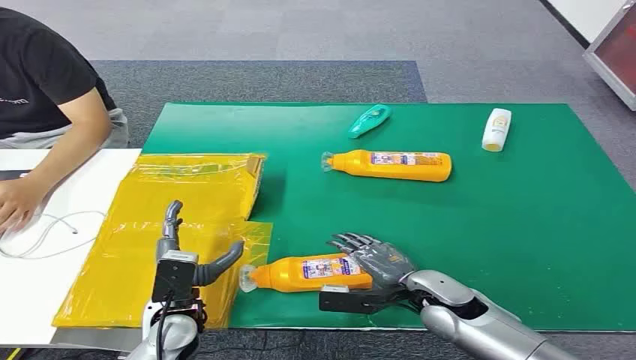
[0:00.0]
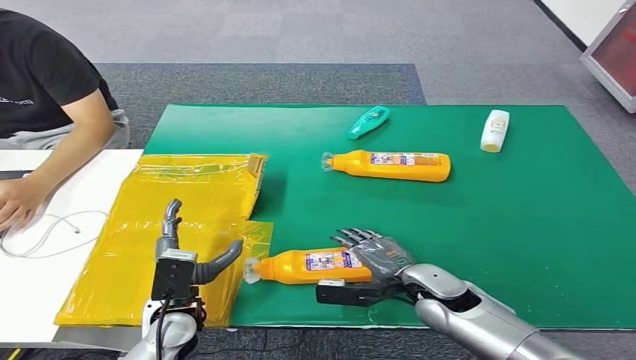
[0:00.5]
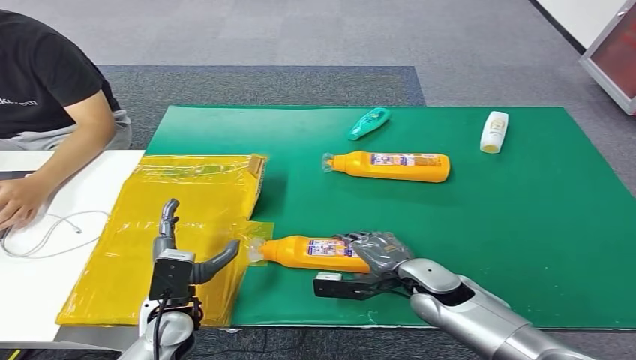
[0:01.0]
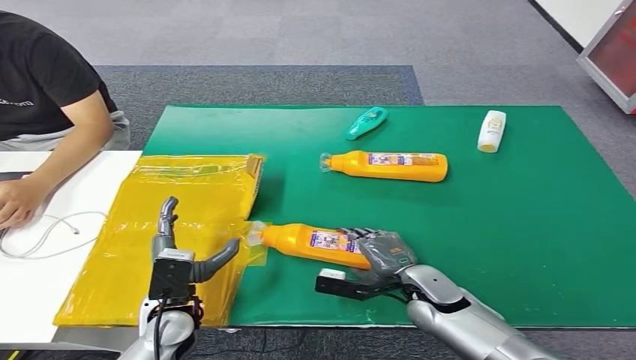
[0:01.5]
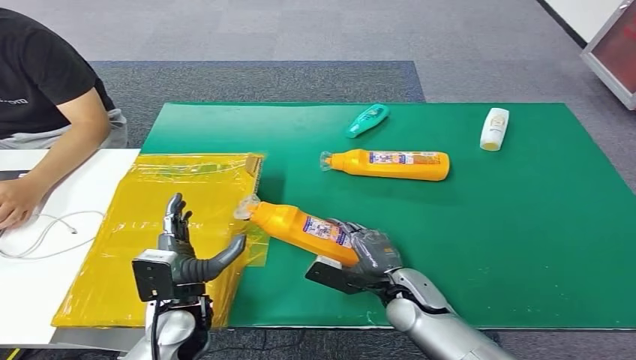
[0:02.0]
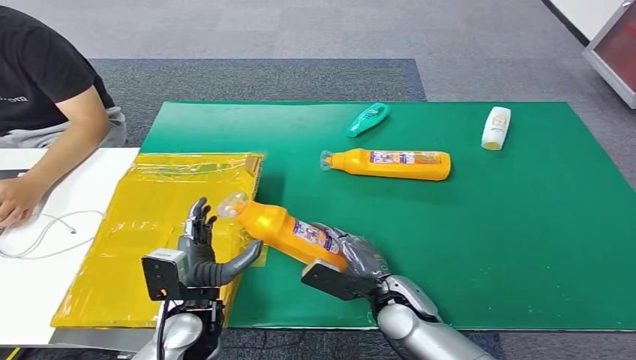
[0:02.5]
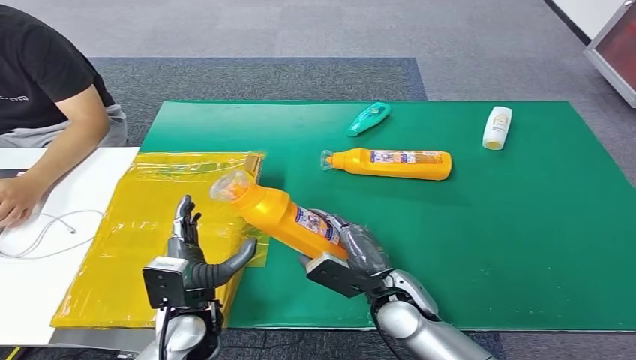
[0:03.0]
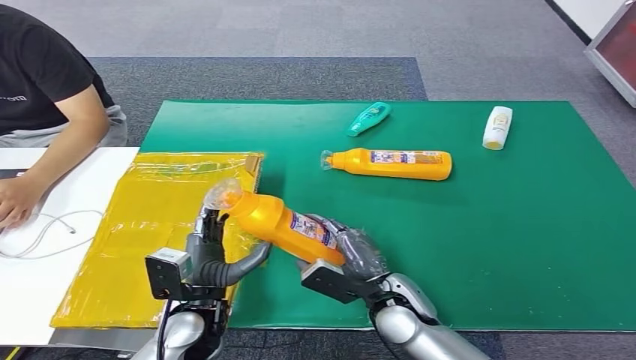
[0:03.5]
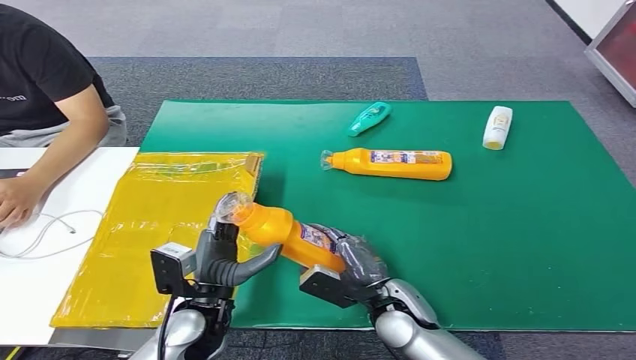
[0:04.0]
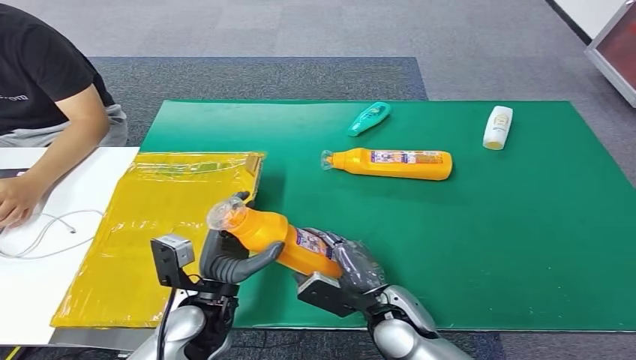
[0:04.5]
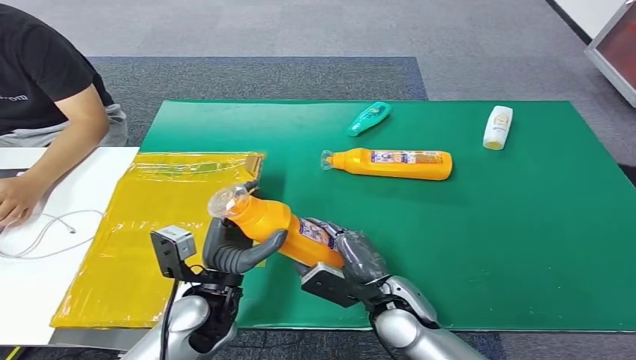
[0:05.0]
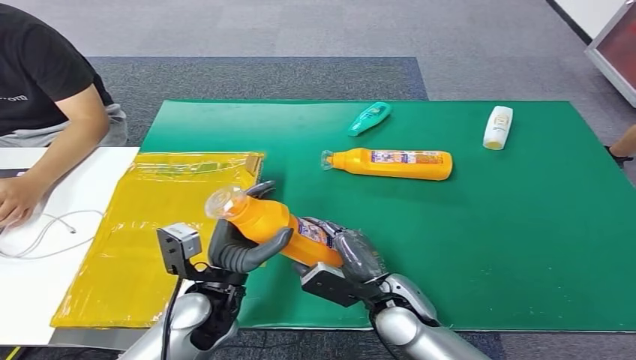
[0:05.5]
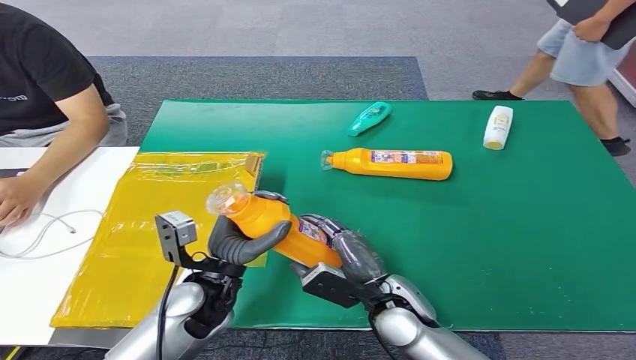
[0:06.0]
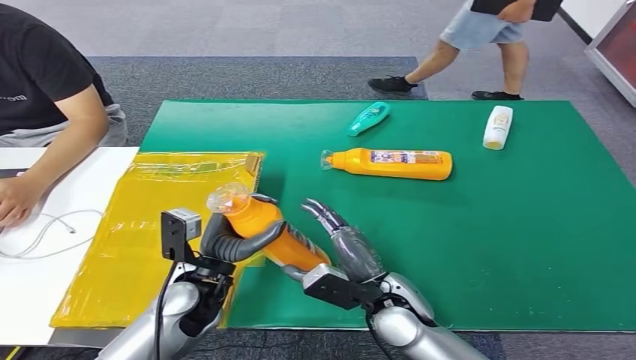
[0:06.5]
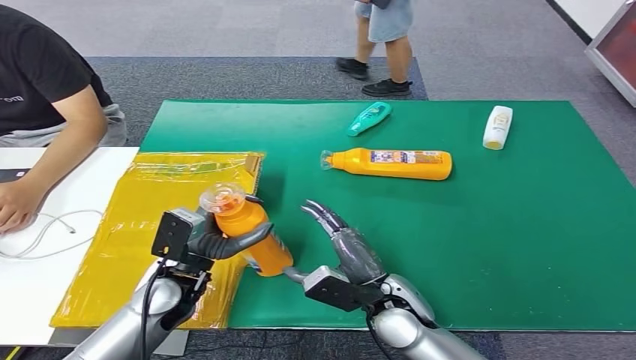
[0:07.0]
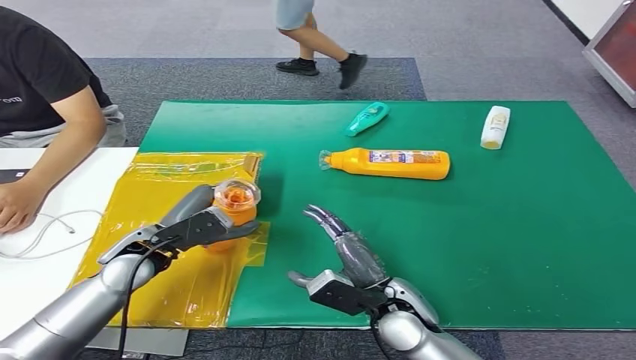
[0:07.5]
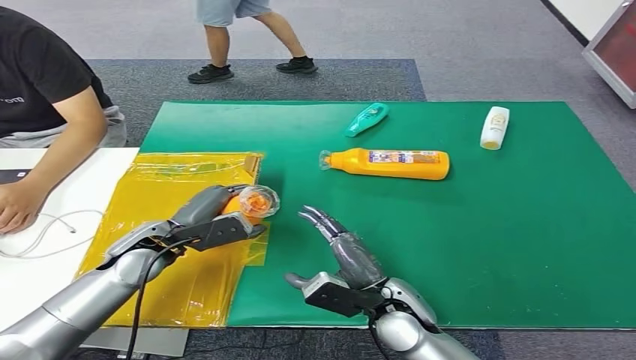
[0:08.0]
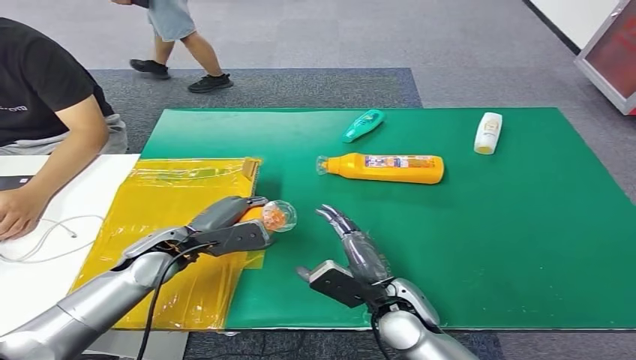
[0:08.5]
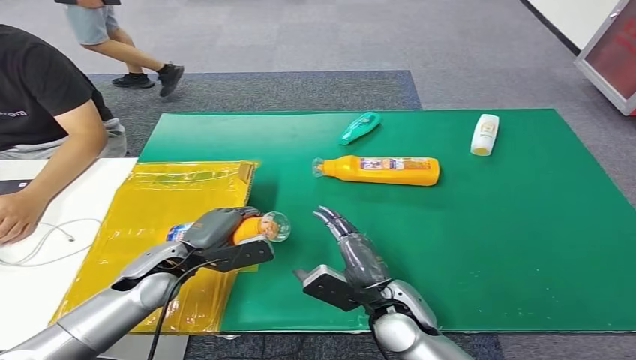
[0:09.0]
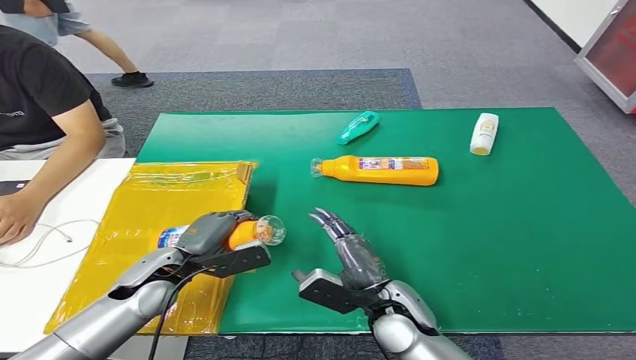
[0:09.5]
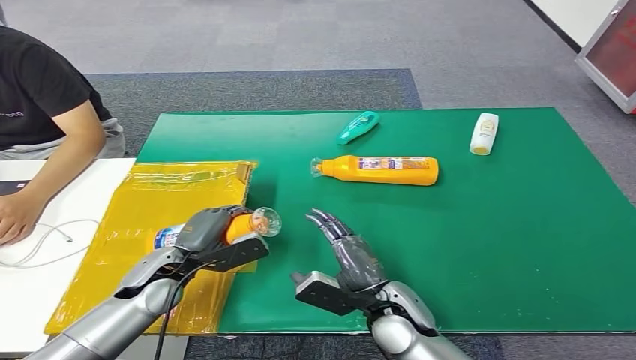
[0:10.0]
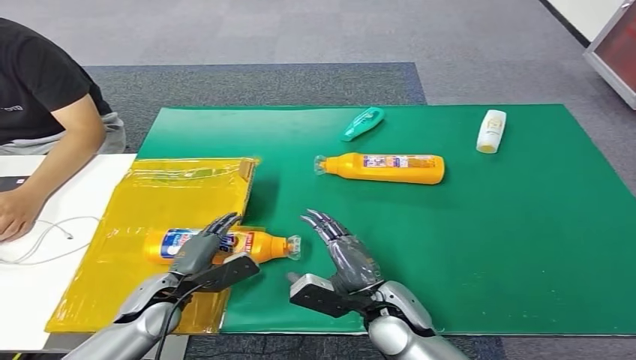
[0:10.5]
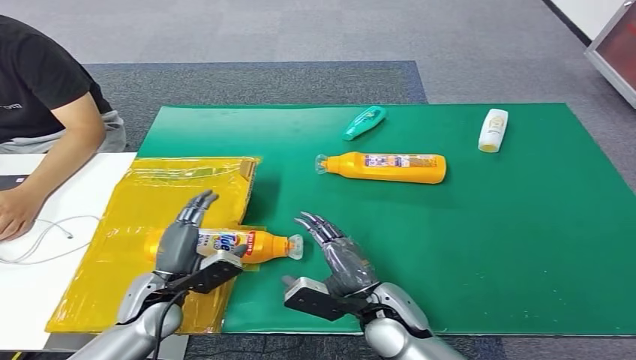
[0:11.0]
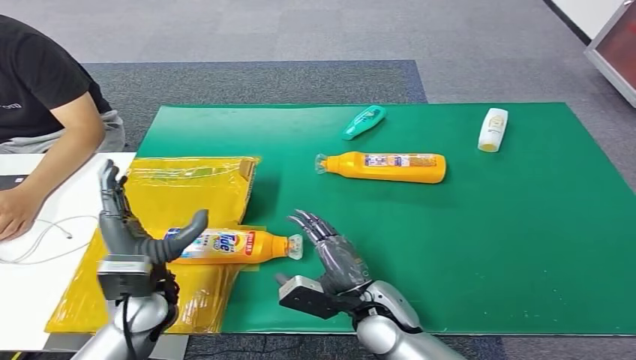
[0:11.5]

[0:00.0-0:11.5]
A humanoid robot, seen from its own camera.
Step, 0:00.0 to 0:03.0: Pick up the bottle from the table.
Step, 0:03.5 to 0:11.5: Turn the bottle to the front side.
0:04.0 to 0:06.0: The left hand moves roughly 5 cm.

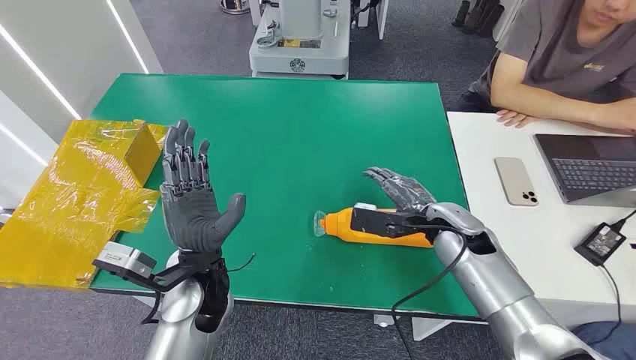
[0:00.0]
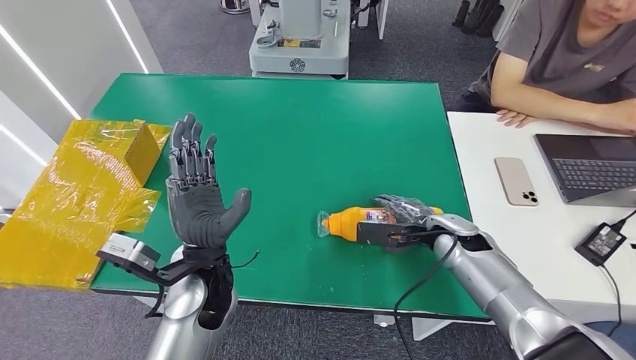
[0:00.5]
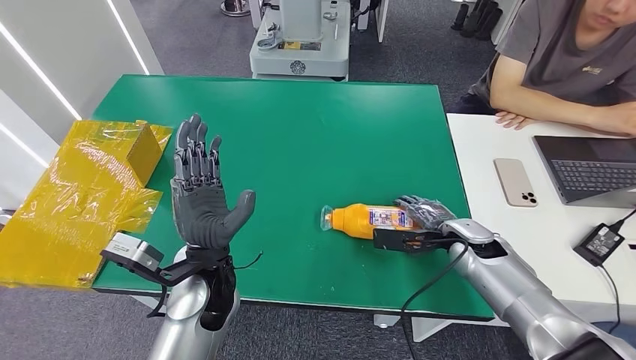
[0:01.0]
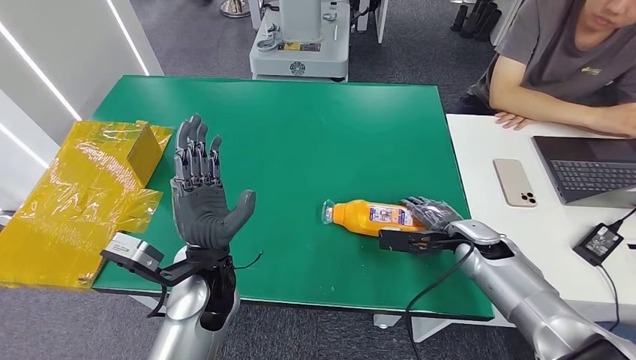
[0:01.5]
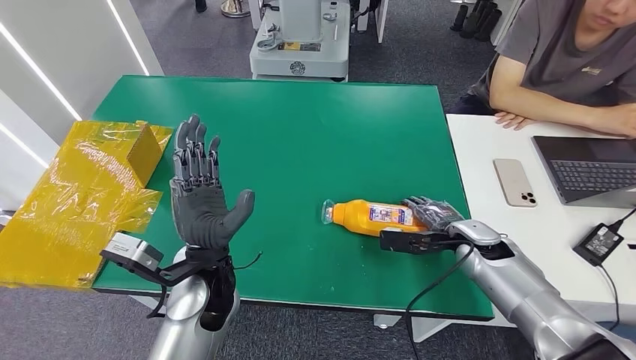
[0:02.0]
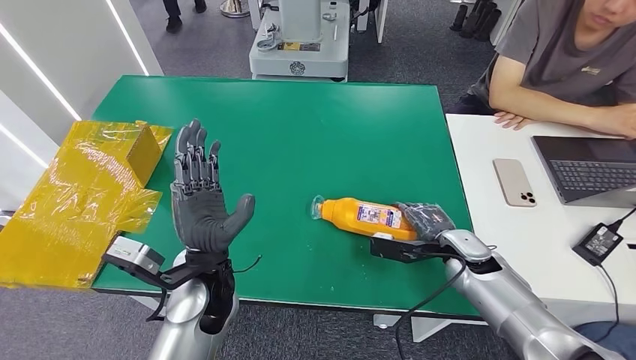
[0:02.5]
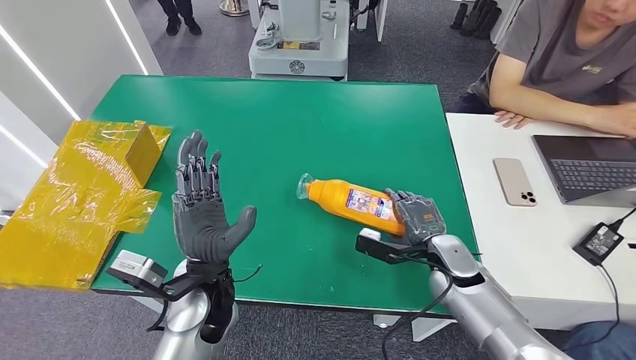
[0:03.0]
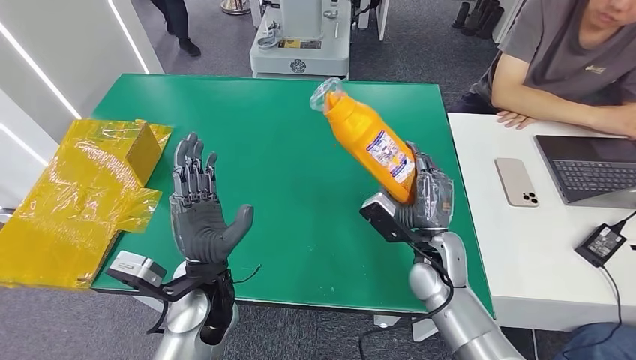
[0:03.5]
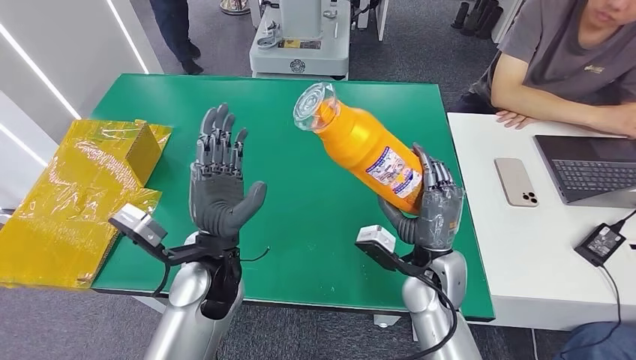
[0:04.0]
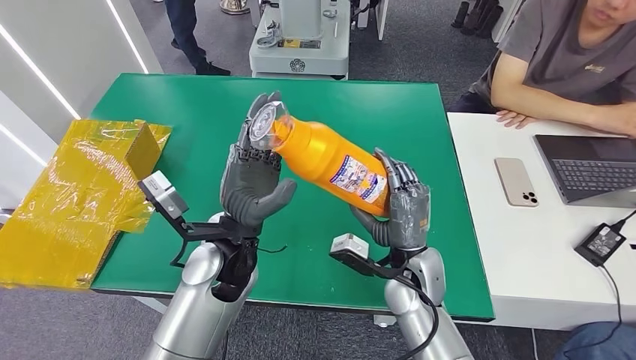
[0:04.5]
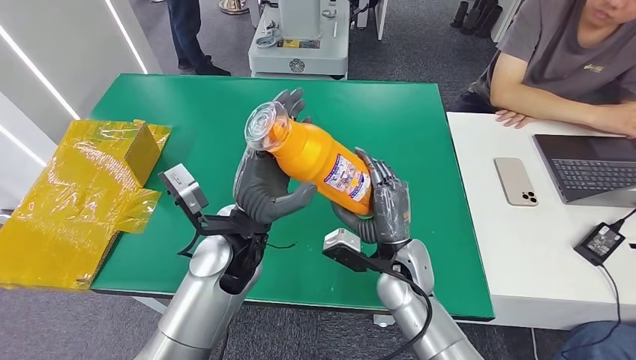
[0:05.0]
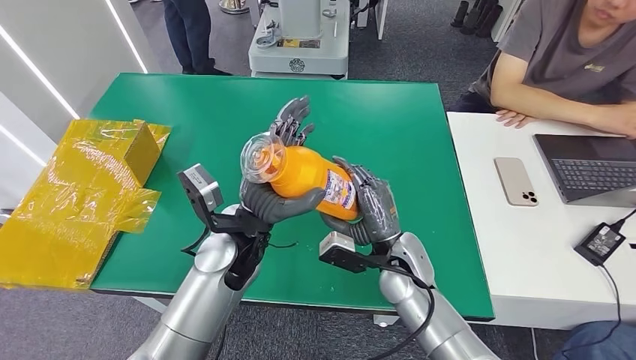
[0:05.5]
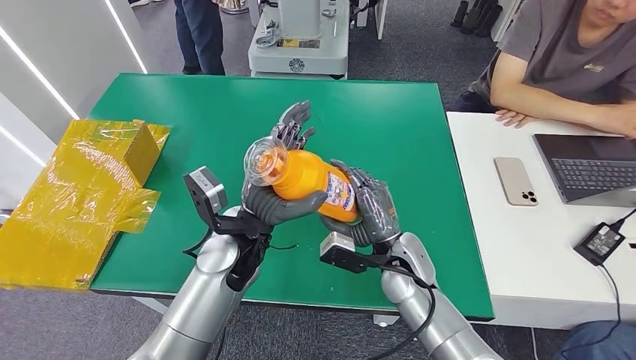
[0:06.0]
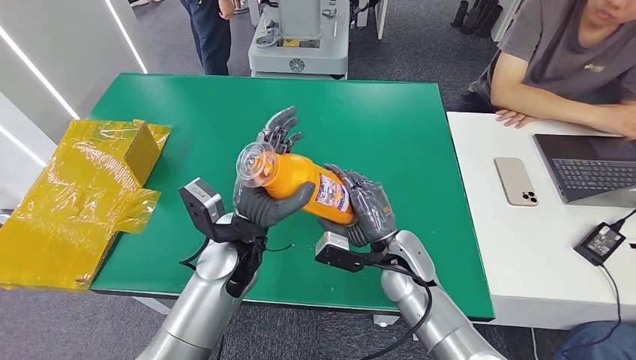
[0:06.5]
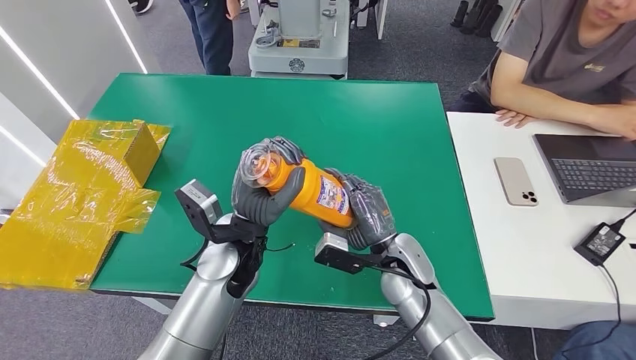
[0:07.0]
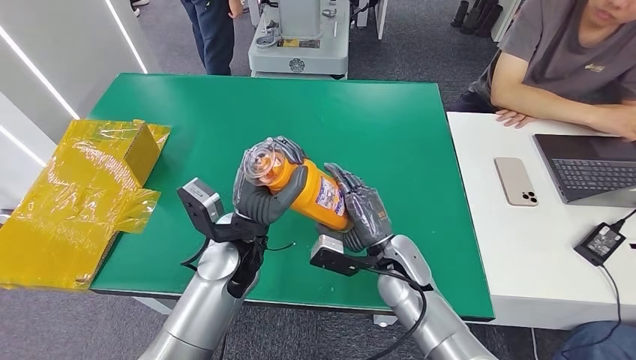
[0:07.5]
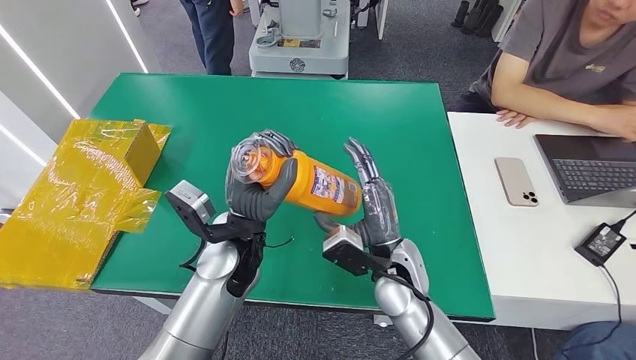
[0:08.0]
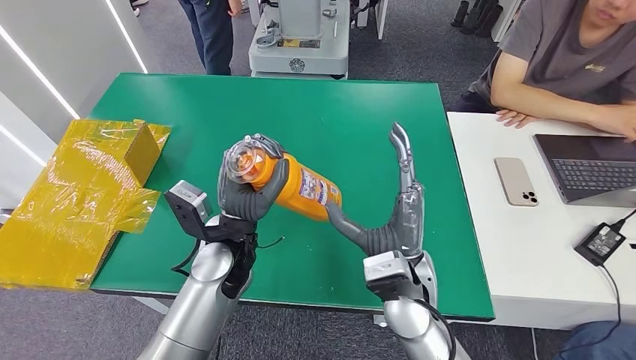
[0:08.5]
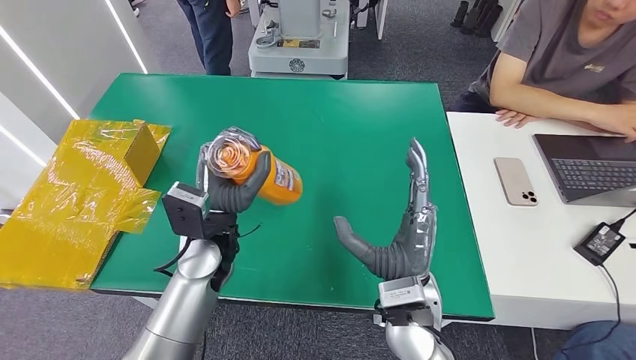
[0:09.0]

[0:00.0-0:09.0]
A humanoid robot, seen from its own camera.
Step, 0:00.0 to 0:04.0: Pick up the bottle from the table.
0:07.0 to 0:09.0: The right hand is displaced backward and upward by roughly 10 cm.
